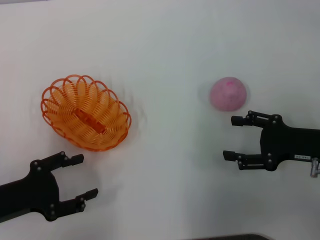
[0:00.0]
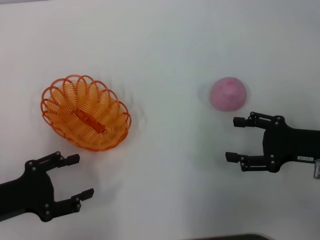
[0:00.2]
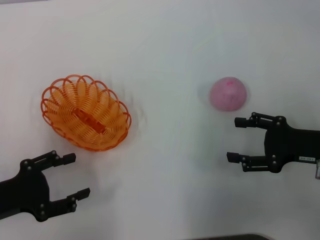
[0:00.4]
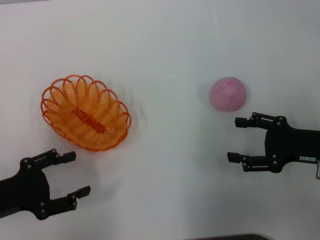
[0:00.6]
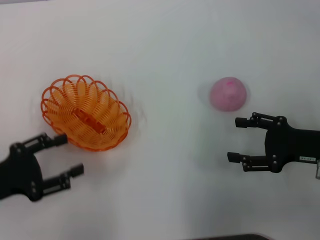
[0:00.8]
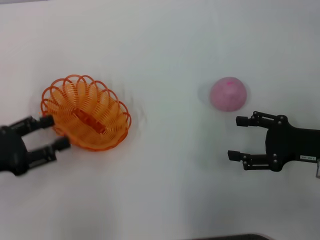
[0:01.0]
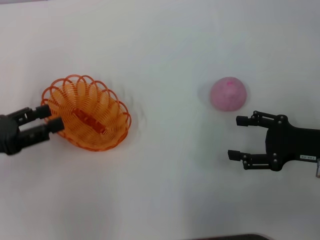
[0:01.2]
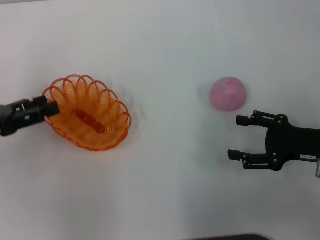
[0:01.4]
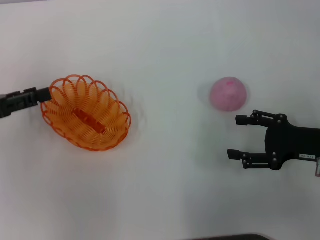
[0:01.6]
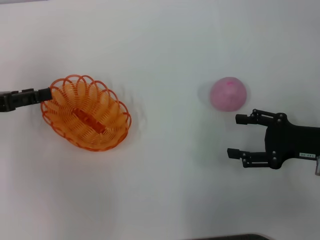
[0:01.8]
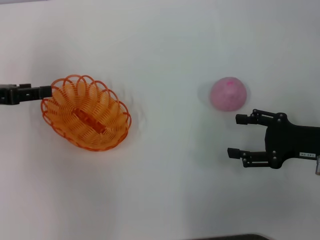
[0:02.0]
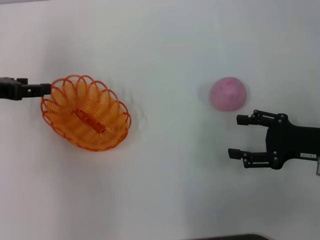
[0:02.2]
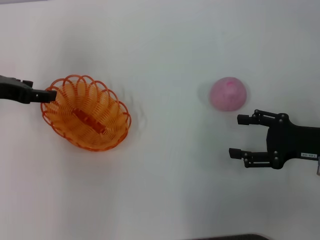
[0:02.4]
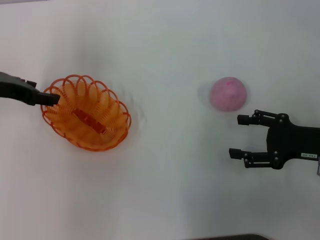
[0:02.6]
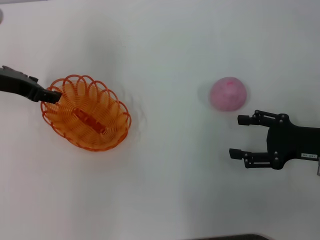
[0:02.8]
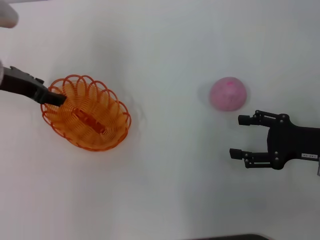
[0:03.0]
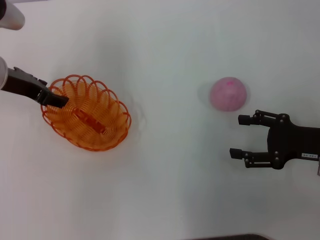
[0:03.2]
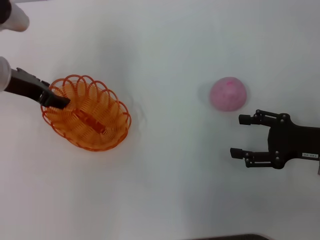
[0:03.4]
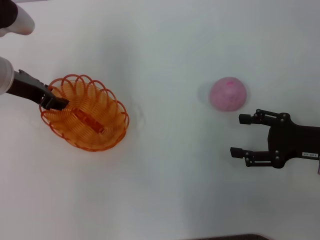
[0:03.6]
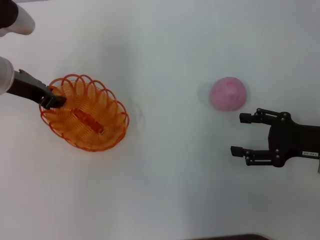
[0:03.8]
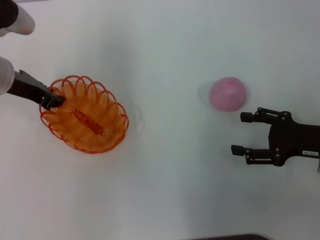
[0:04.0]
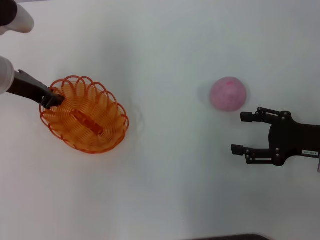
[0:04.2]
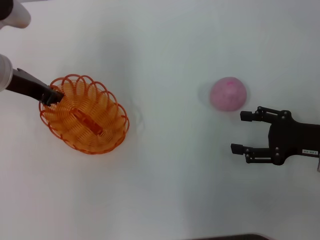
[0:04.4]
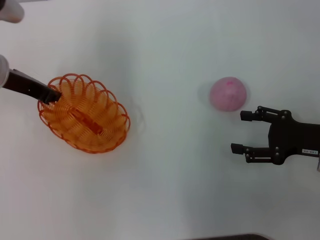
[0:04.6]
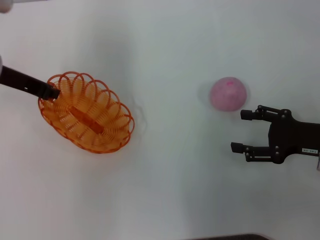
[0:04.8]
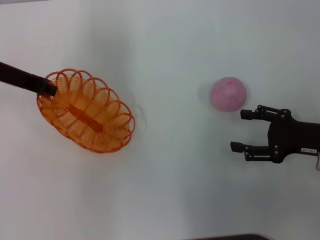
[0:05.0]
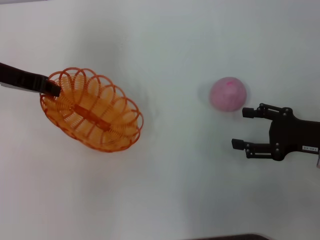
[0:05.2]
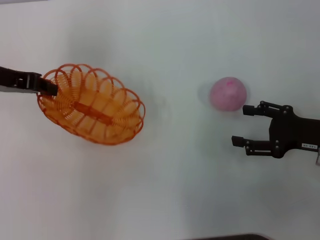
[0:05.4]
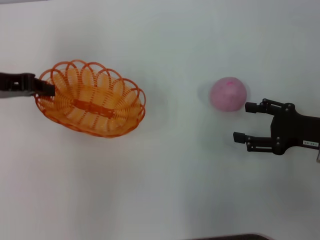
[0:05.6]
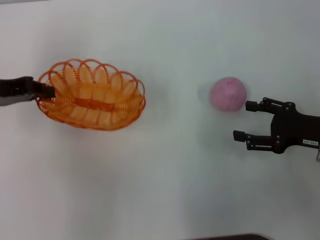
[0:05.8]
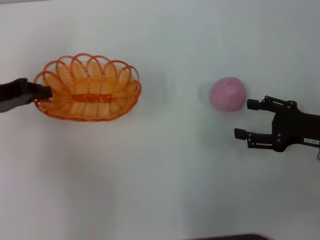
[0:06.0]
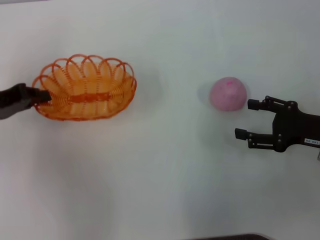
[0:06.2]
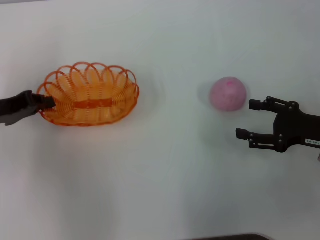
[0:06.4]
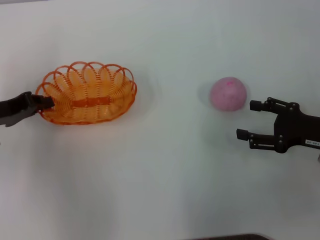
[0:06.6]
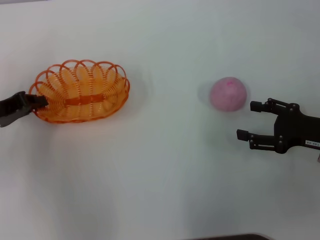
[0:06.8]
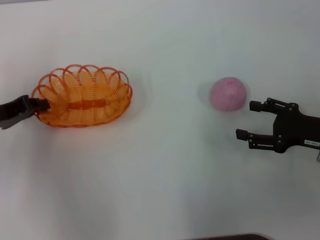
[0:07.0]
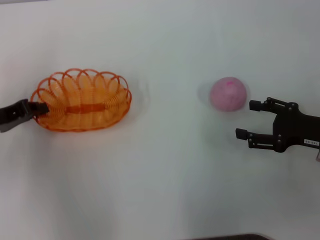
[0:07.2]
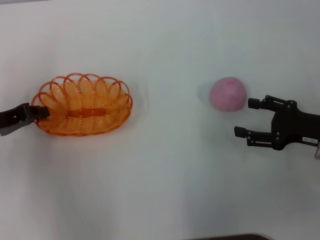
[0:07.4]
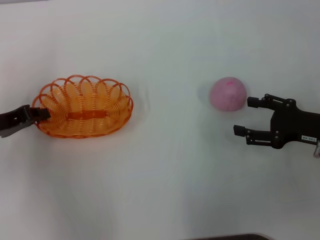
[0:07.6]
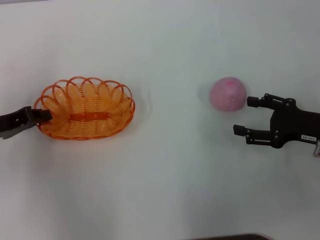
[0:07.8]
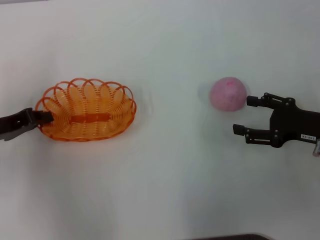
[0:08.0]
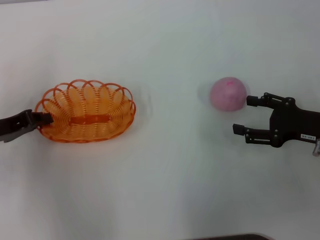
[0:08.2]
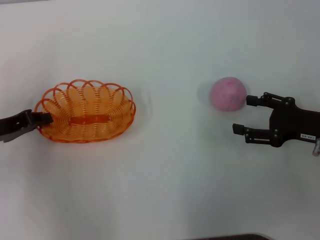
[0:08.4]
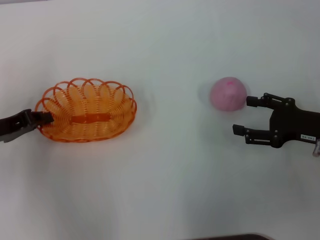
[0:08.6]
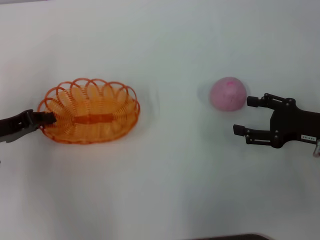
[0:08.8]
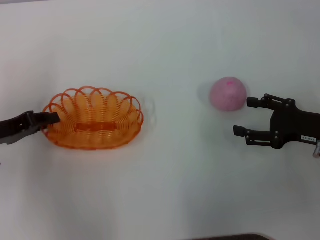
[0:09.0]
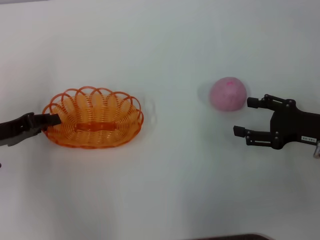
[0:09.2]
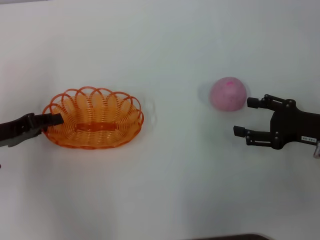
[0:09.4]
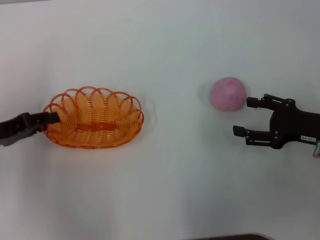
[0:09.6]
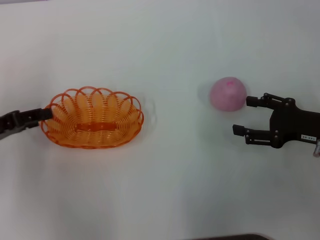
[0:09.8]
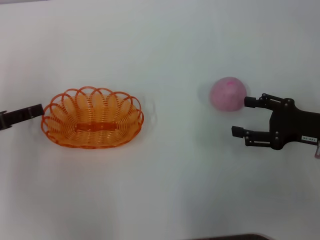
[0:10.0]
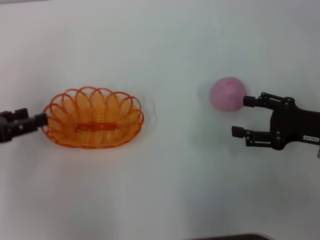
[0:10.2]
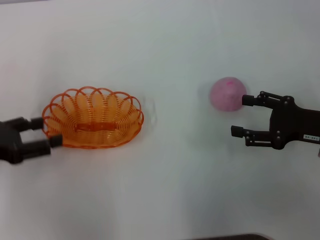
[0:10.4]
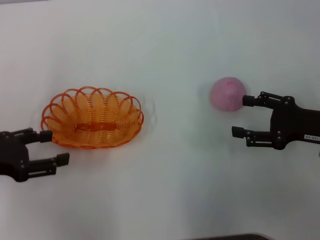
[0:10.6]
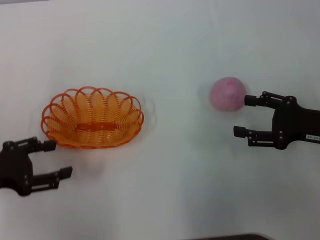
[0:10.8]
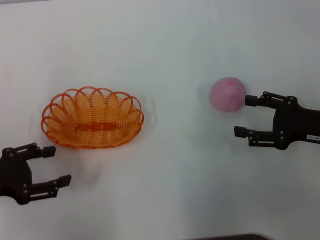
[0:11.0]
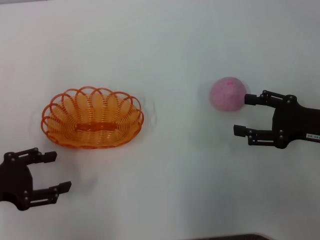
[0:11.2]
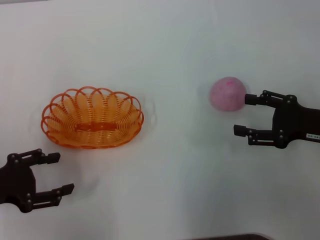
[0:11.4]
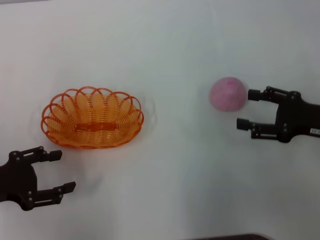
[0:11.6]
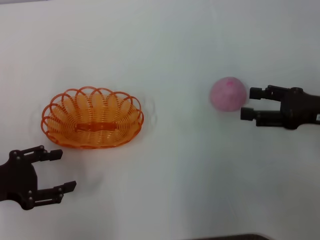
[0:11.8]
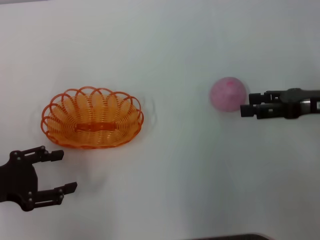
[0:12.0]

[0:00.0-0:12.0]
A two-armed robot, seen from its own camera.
Step, 0:00.0 to 0:05.2: Pick up the basket with the left gripper.
Step, 0:05.4 to 0:10.0: Place the basket in the center of view with the left gripper.
0:00.0 to 0:01.6: The left gripper moves forward and upward, about 10 cm.
0:01.6 to 0:03.0: The left gripper travels forward and to the right by roughly 15 cm.
0:03.0 to 0:04.4: The left gripper closes up.
0:04.4 to 0:06.0: The left gripper shifts about 10 cm to the left and backward.
0:06.0 to 0:07.6: The left gripper heads downward, covering approximately 5 cm.
0:07.6 to 0:09.0: Neither gripper changes place.
0:09.0 to 0:10.4: The left gripper opens up.
0:10.4 to 0:12.0: The right gripper changes place by some 5 cm.

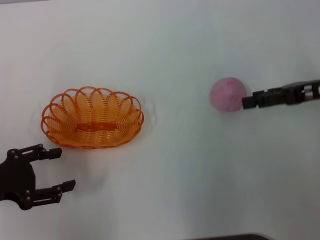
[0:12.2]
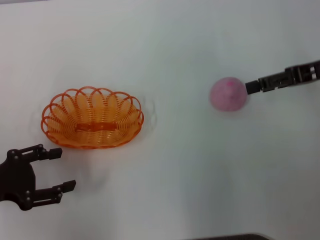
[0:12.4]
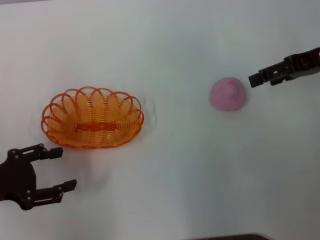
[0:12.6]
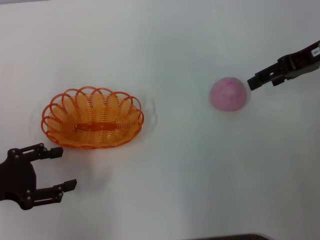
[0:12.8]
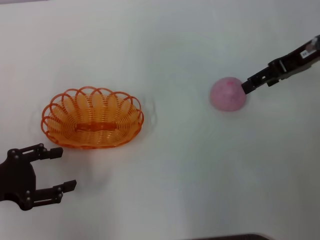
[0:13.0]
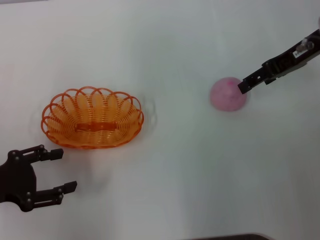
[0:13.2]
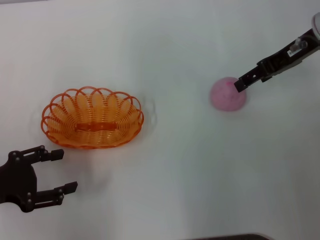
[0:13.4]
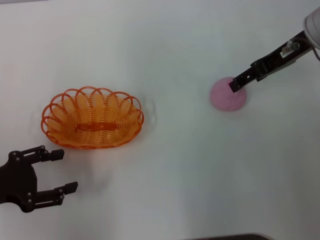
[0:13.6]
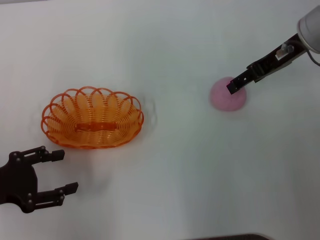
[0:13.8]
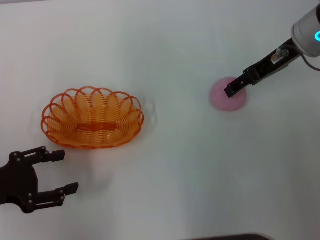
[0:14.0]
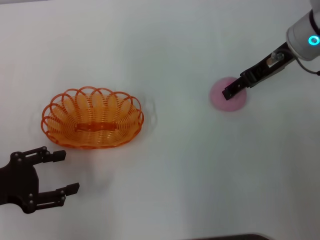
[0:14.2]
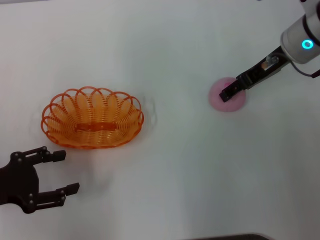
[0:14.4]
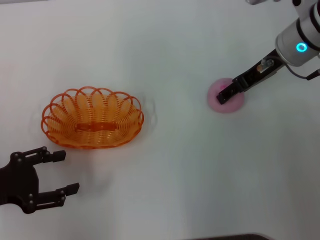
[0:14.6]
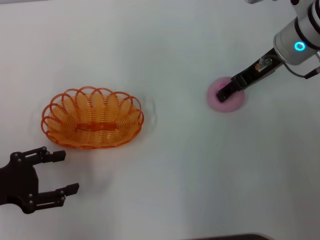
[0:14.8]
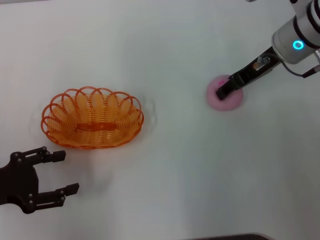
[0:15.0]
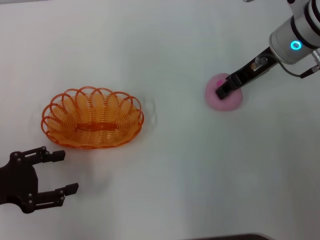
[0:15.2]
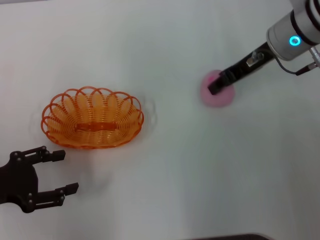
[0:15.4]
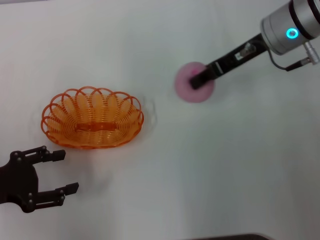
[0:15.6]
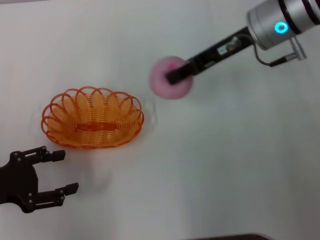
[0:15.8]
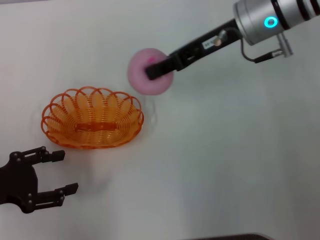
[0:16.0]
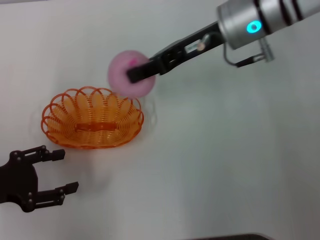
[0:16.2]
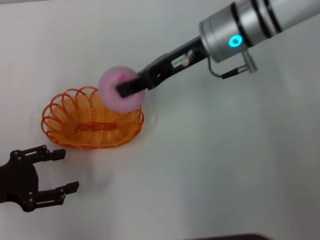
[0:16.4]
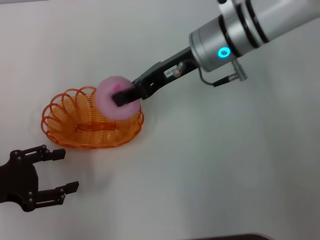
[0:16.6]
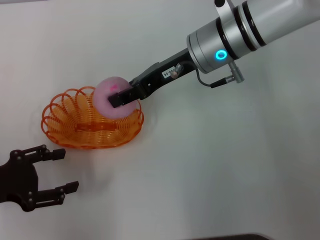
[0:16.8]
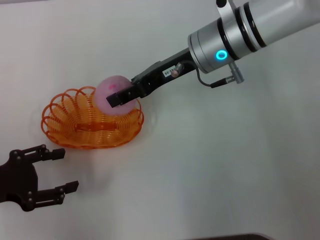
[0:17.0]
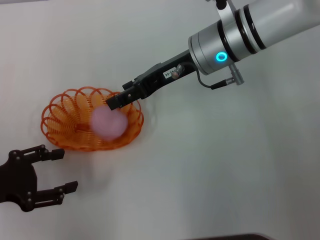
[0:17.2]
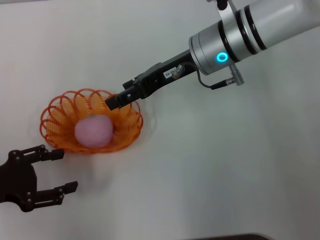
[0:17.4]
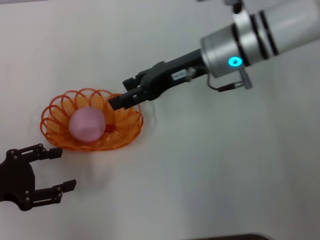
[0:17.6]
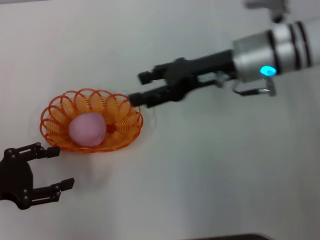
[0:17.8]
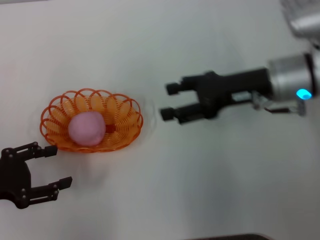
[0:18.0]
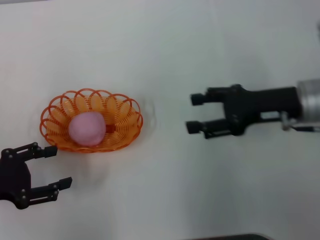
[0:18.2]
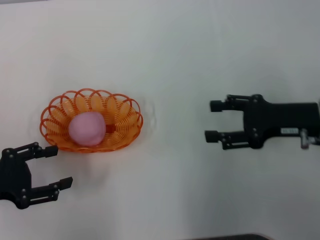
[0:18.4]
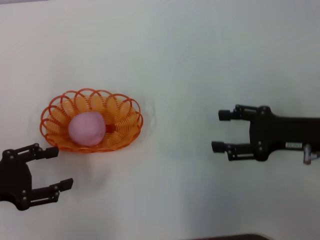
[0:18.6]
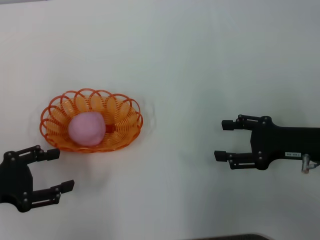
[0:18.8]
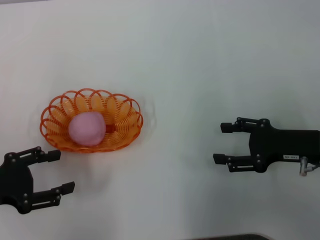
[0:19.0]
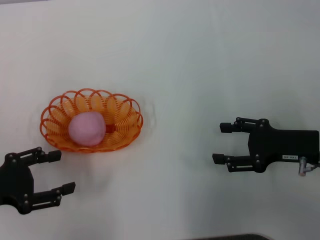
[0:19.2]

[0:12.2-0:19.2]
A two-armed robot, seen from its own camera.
Step, 0:12.2 to 0:15.8: Pick up the peach with the right gripper.
Step, 0:16.0 to 0:17.8: Place the peach into the basket with the right gripper.
0:12.2 to 0:13.6: The right gripper is displaced to the left and forward by roughly 10 cm.
0:13.6 to 0:15.0: There are only small adjustments of the grippers.
0:15.0 to 0:16.4: The right gripper shifts about 10 cm to the left, and closes.
0:16.4 to 0:17.8: The right gripper shifts some 5 cm to the right, and opens up.
0:17.8 to 0:19.2: The right gripper moves to the right, backward and downward, some 20 cm.
